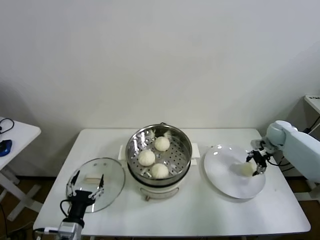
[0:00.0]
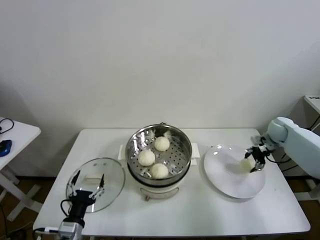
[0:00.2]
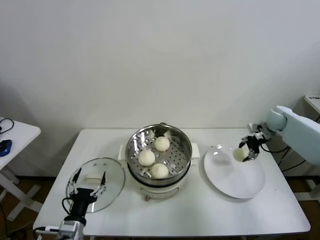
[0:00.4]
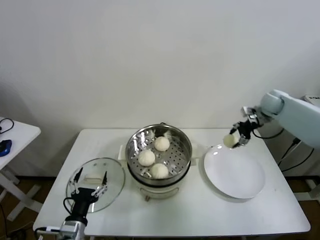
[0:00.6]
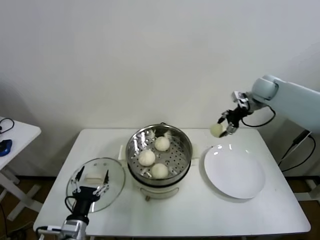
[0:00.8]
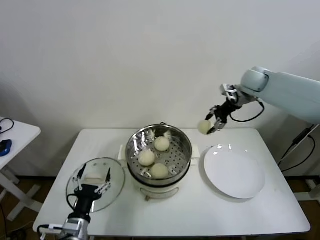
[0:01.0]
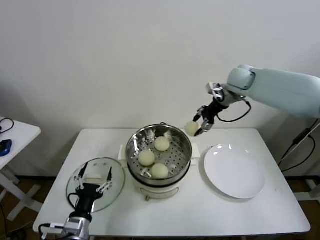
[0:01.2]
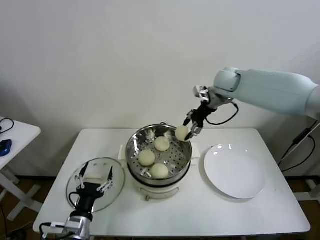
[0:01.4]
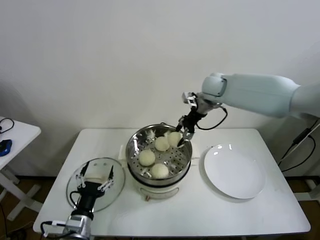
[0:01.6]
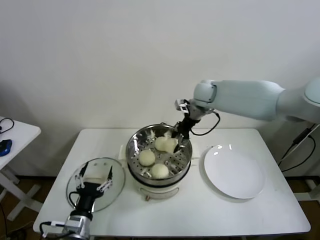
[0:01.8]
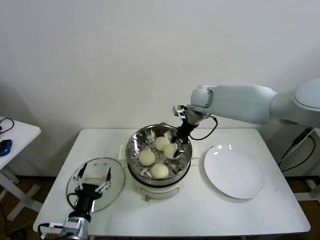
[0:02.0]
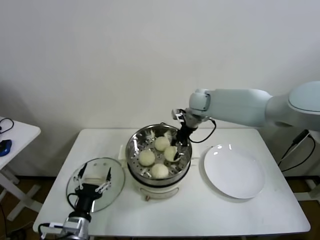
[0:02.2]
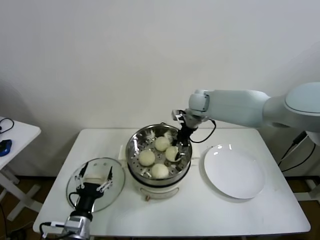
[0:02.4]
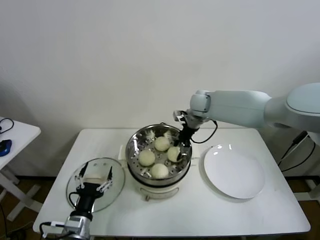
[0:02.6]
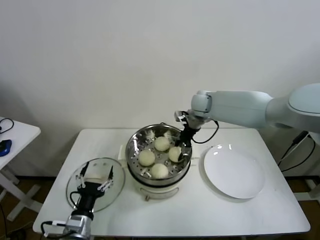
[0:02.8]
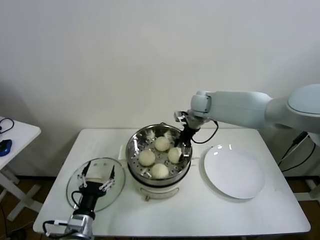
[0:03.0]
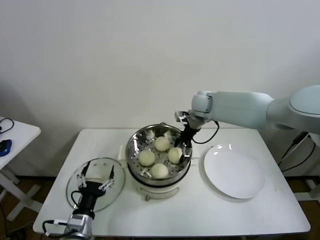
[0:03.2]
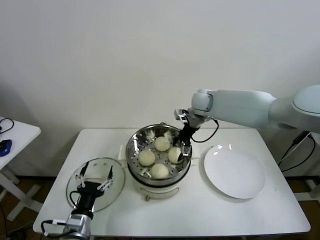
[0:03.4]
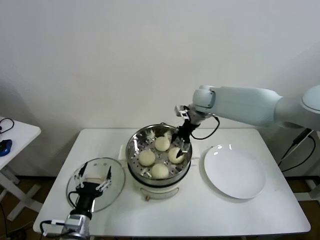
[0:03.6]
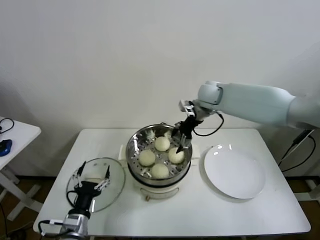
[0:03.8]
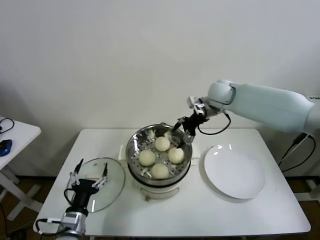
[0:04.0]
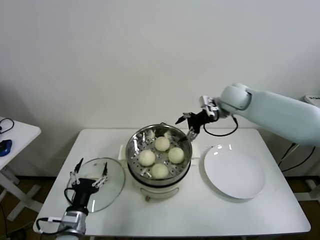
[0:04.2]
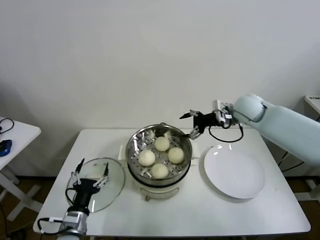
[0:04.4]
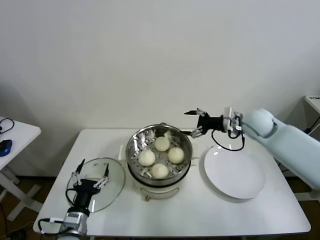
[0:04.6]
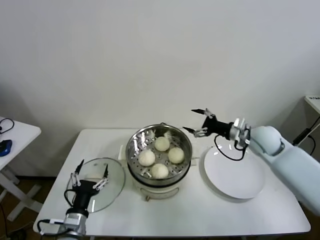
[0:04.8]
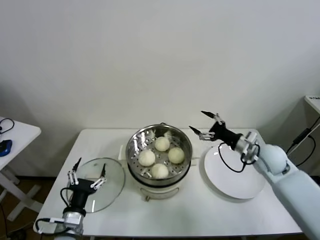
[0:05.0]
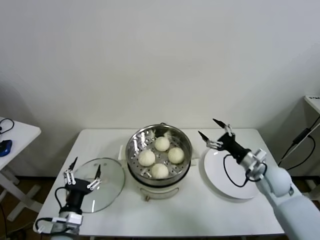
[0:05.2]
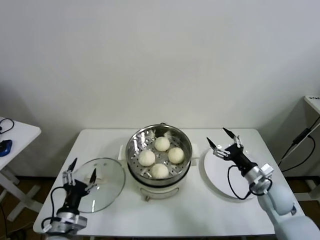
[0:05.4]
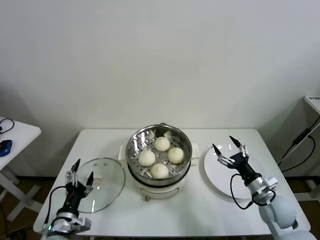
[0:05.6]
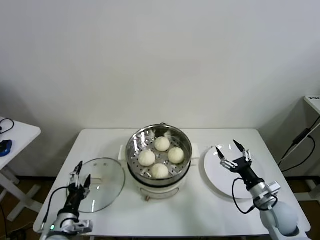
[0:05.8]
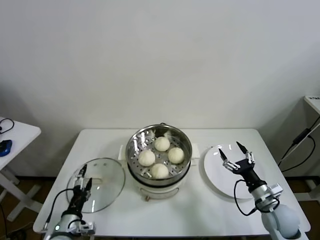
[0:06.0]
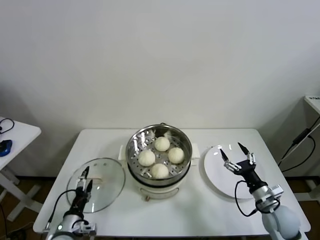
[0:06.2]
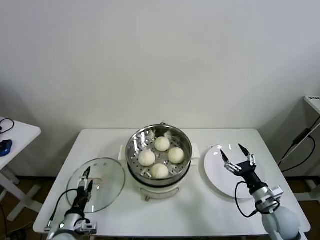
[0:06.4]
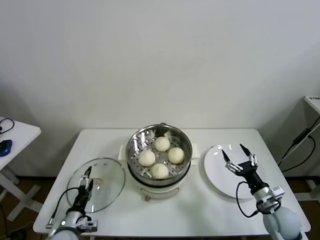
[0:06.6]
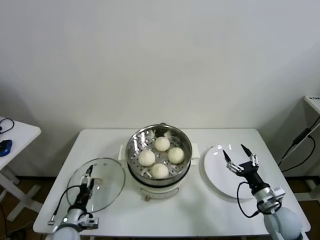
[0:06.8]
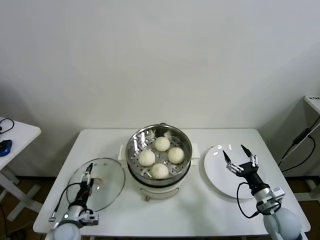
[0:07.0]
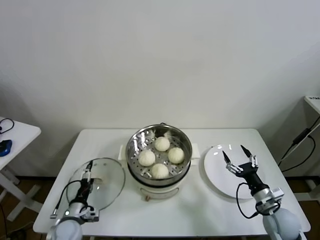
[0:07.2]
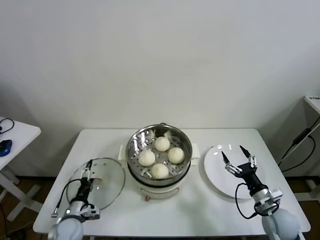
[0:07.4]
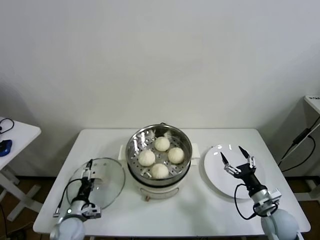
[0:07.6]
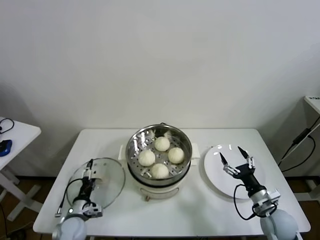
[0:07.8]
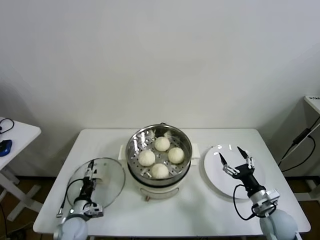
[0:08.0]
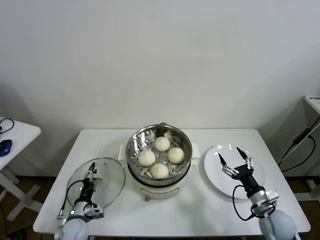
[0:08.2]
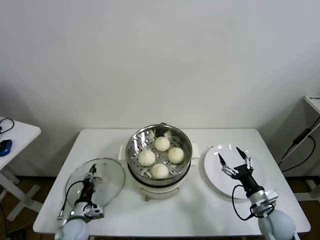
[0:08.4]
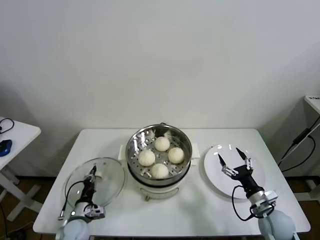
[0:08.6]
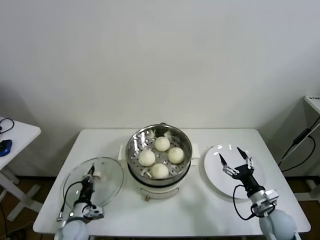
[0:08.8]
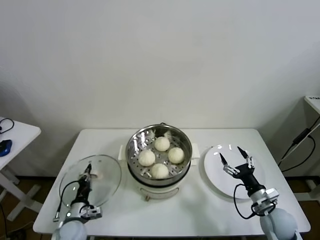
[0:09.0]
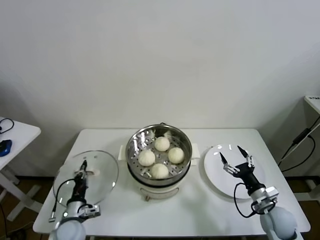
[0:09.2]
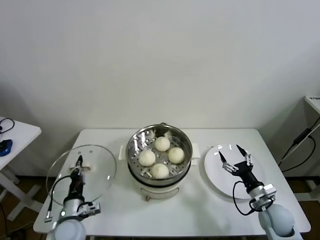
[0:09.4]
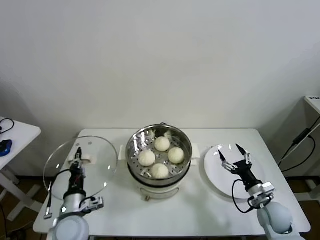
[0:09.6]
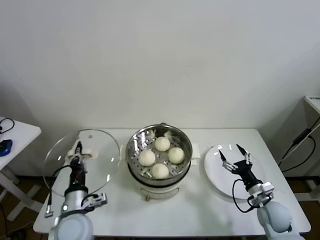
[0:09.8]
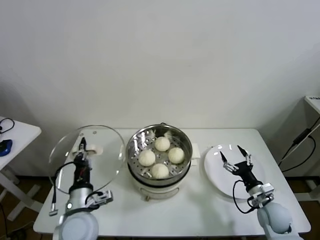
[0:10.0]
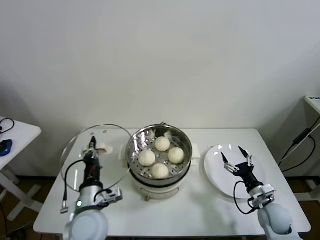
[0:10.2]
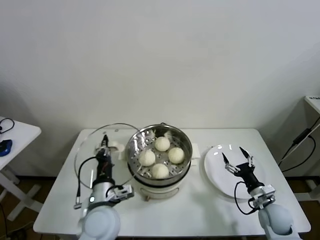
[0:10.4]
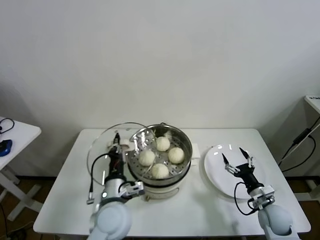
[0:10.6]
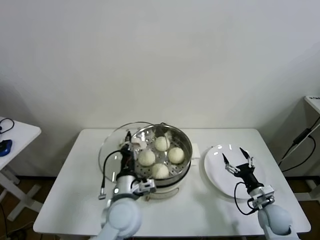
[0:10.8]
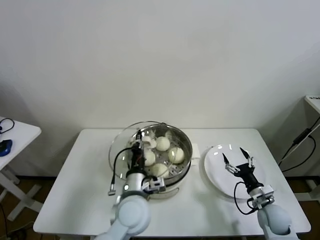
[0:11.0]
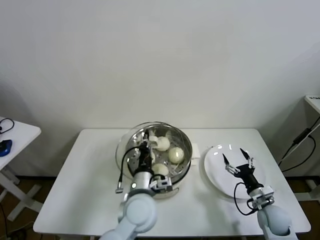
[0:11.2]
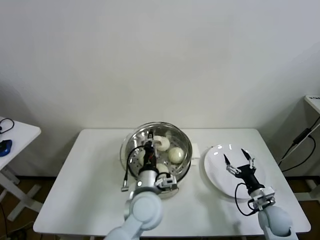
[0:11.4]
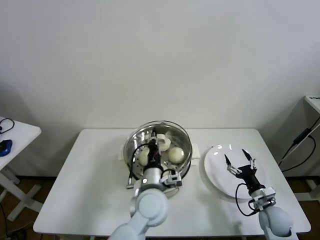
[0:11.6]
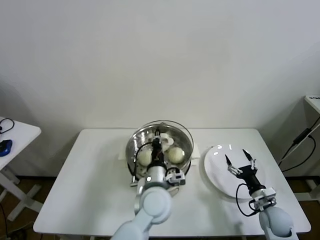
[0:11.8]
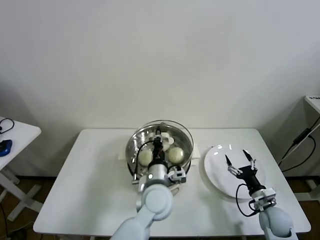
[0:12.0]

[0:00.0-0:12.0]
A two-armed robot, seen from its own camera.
Task of the whole recording: take steamed baozi put them in steamer.
Step, 0:00.0 to 0:03.4: Place the baozi on the steamer with right gripper.
Step, 0:03.8 to 0:08.4: Grasp the pot lid with left gripper.
0:00.0 to 0:01.6: The right gripper travels to the left and upward by some 35 cm.
0:01.6 to 0:03.0: The right gripper heads downward, covering some 5 cm, and opens.
0:03.0 to 0:04.4: The right gripper goes roughly 15 cm to the right and backward, and opens up.
0:04.4 to 0:06.0: The right gripper goes about 35 cm backward and downward. Meanwhile the left gripper ends up approximately 5 cm from where it was.
0:06.0 to 0:07.6: The left gripper is displaced forward and downward by about 10 cm.
0:07.6 to 0:09.0: The left gripper closes.
0:09.0 to 0:10.4: The left gripper heads upward and to the right, covering about 25 cm.
0:10.4 to 0:12.0: The left gripper is displaced to the right by approximately 15 cm.

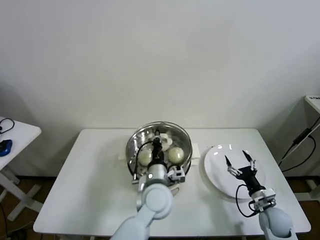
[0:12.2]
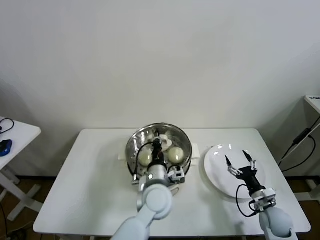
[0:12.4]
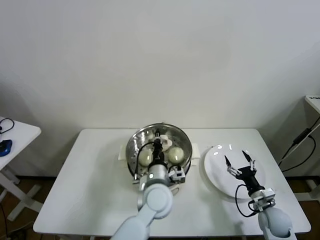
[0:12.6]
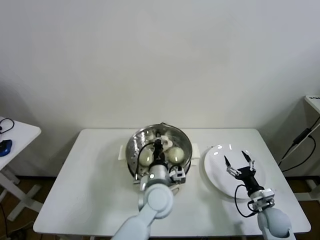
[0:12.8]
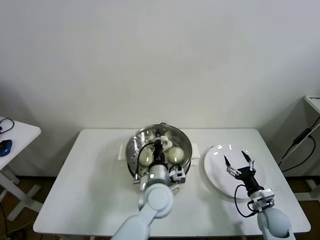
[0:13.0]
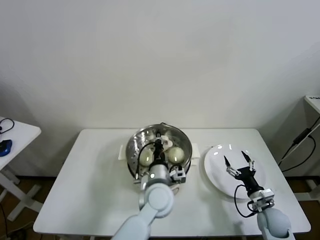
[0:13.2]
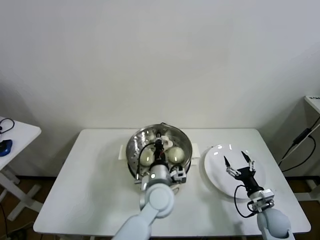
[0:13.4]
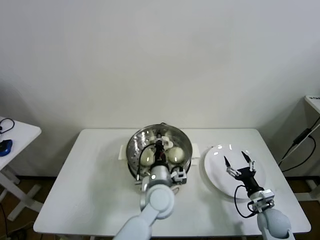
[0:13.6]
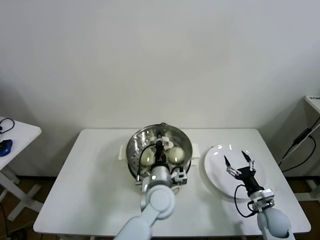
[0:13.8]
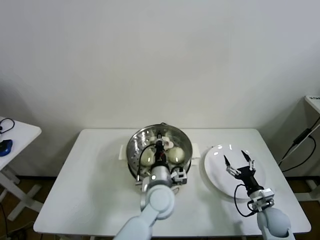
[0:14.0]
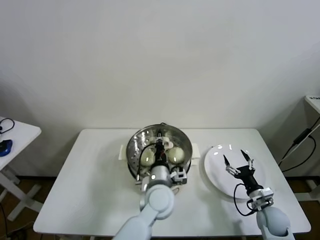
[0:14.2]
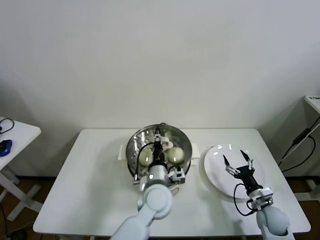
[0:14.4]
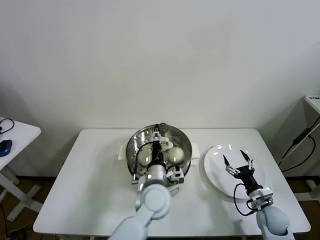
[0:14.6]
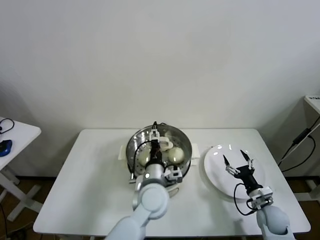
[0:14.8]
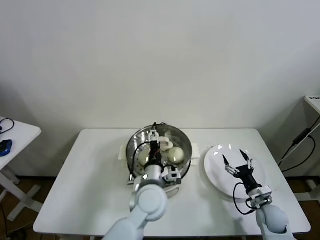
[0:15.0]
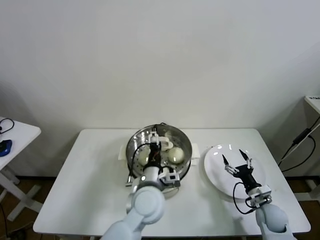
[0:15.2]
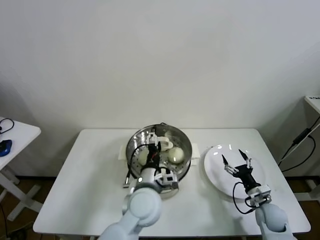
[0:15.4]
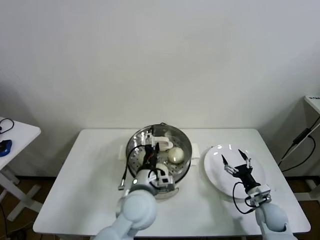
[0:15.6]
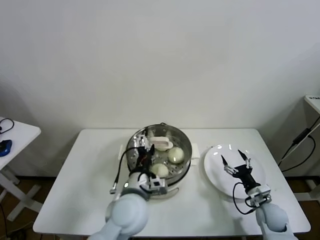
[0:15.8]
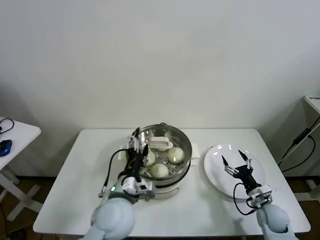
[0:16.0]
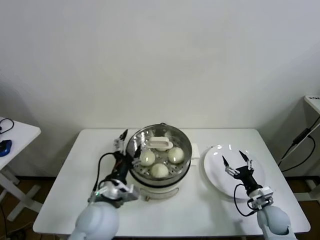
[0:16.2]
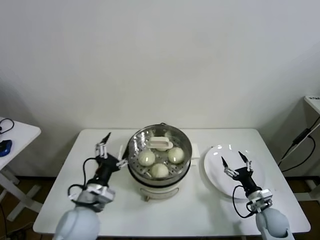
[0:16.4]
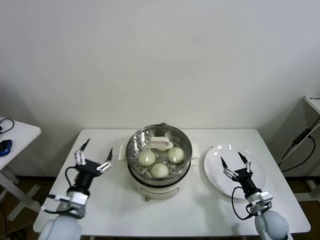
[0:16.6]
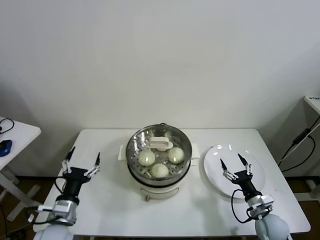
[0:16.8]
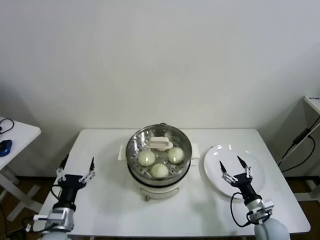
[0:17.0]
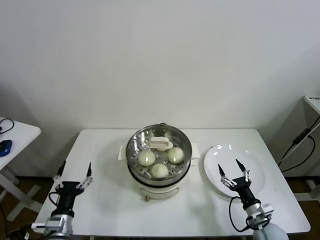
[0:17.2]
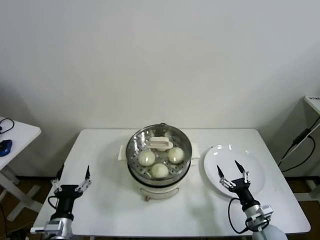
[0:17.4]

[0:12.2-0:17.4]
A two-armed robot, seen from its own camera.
Task of the whole recording: take steamed baozi put them in steamer.
Step, 0:12.2 to 0:15.2: Place the pot lid on the steamer with left gripper.
0:12.2 to 0:14.0: The grippers make only small movements.
0:14.0 to 0:15.6: The left gripper moves to the left, some 5 cm, and opens.
0:15.6 to 0:17.4: The left gripper is displaced to the left, downward and backward by approximately 30 cm. The right gripper is displaced backward by about 5 cm.
